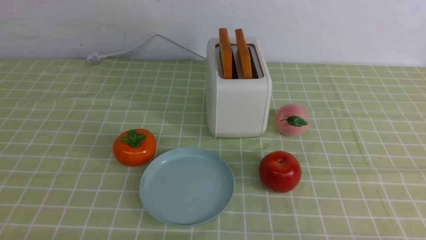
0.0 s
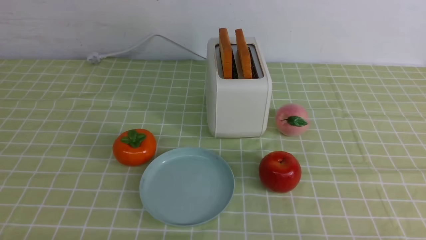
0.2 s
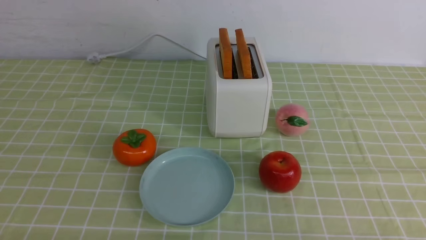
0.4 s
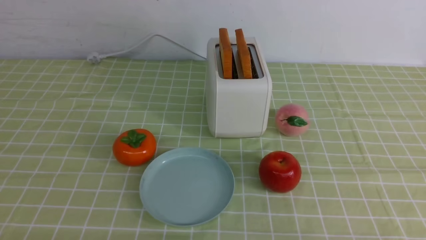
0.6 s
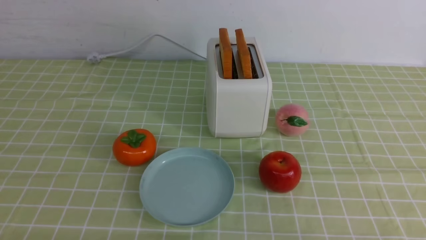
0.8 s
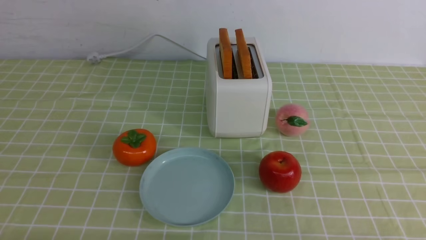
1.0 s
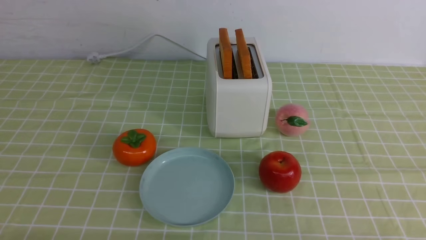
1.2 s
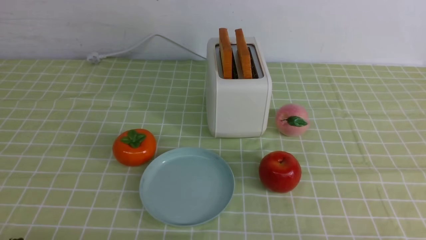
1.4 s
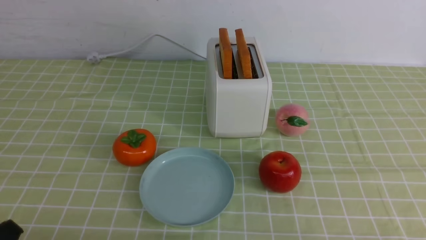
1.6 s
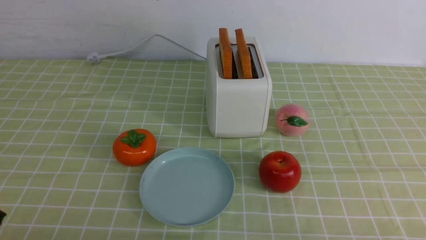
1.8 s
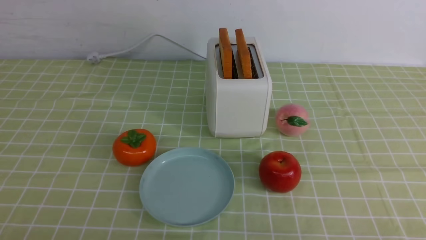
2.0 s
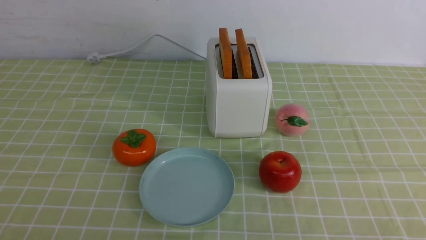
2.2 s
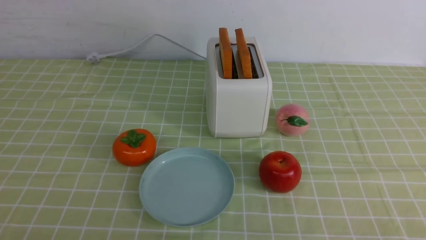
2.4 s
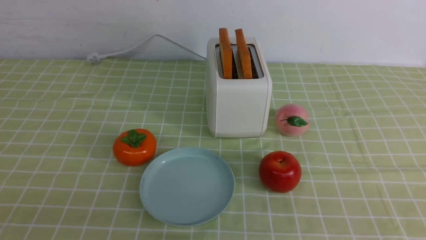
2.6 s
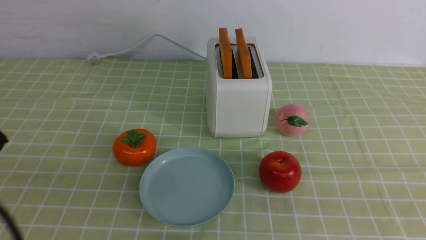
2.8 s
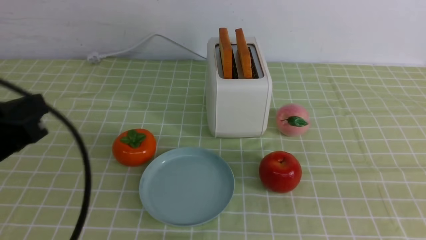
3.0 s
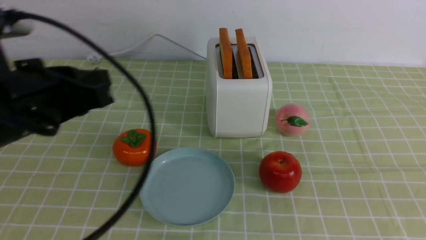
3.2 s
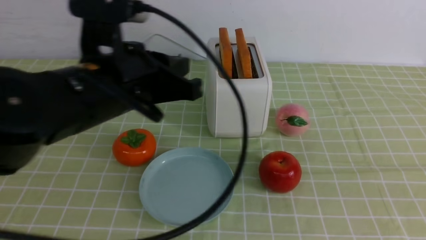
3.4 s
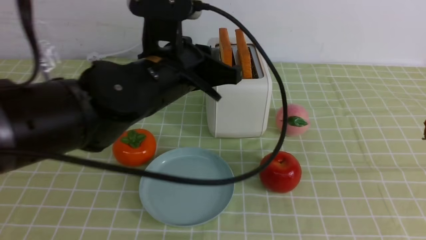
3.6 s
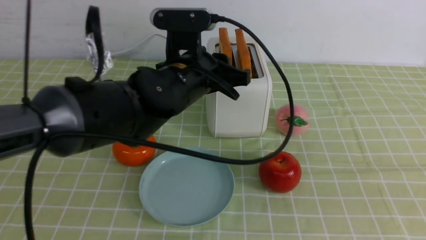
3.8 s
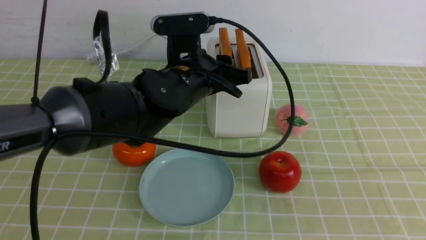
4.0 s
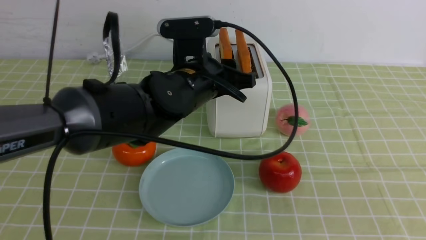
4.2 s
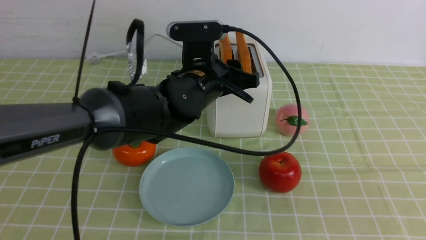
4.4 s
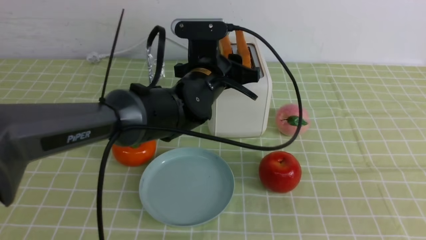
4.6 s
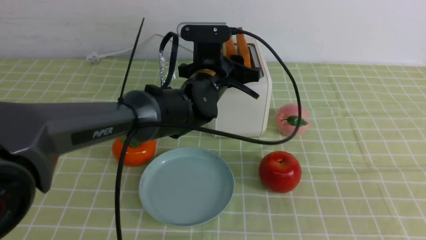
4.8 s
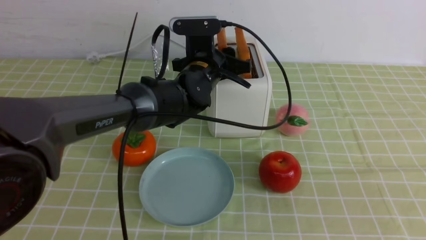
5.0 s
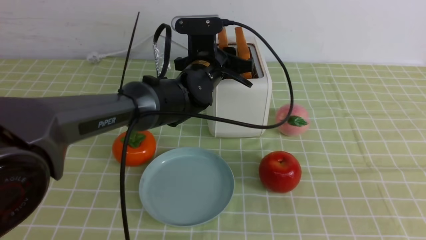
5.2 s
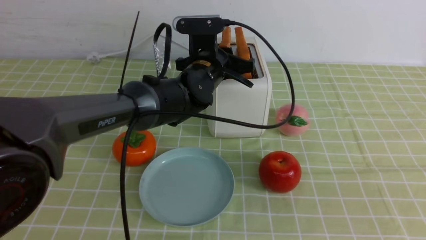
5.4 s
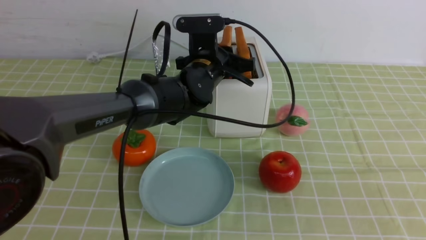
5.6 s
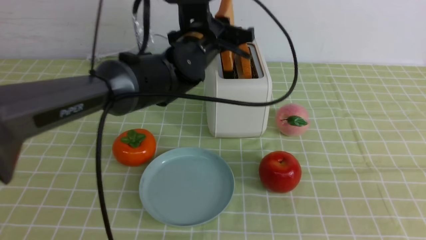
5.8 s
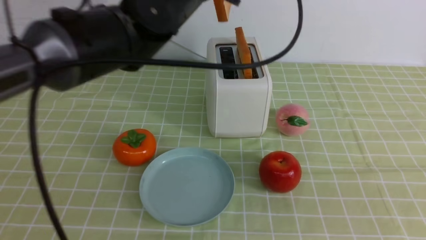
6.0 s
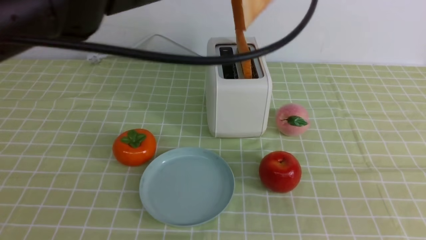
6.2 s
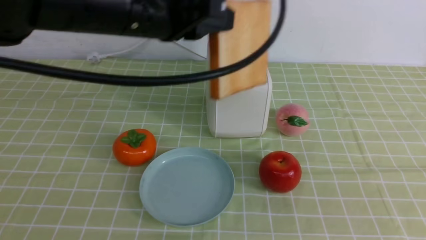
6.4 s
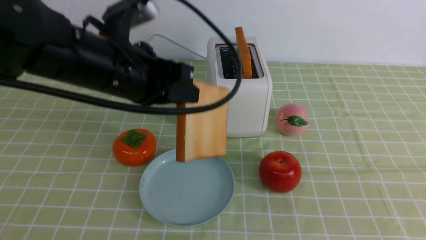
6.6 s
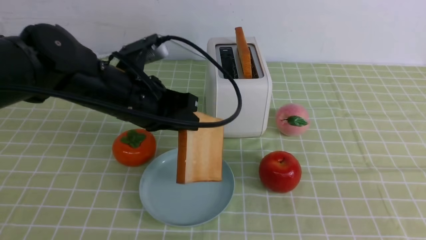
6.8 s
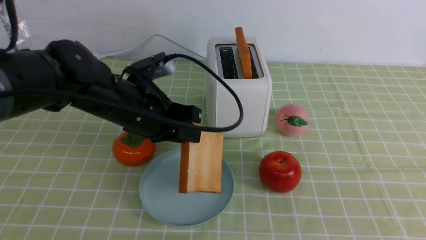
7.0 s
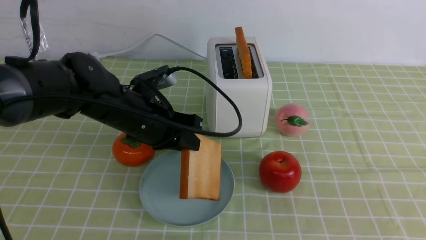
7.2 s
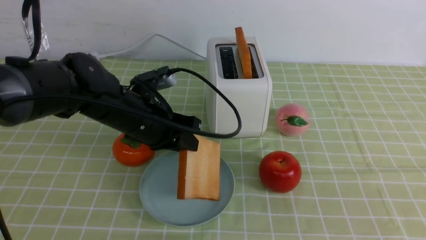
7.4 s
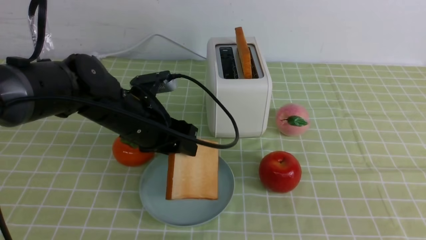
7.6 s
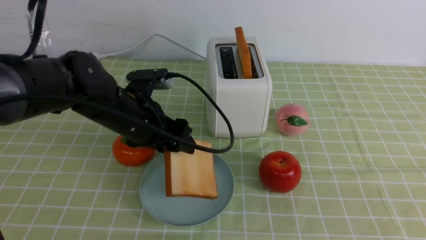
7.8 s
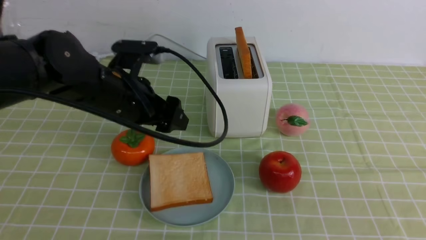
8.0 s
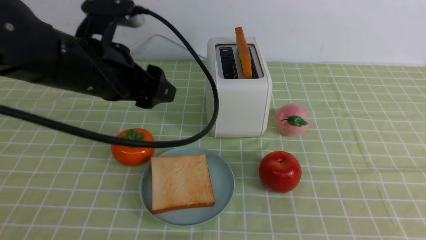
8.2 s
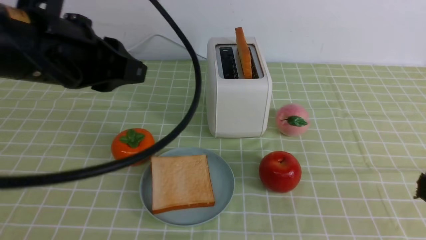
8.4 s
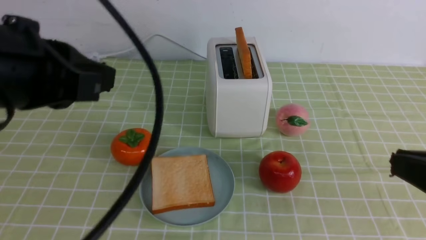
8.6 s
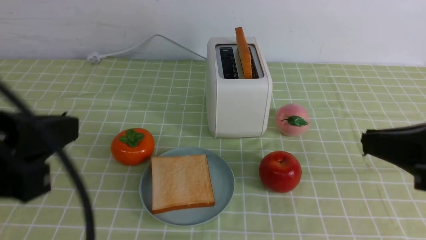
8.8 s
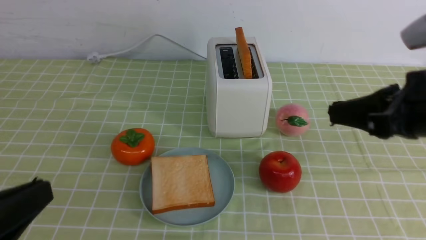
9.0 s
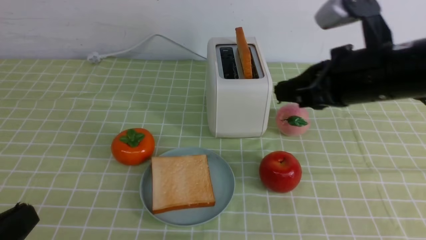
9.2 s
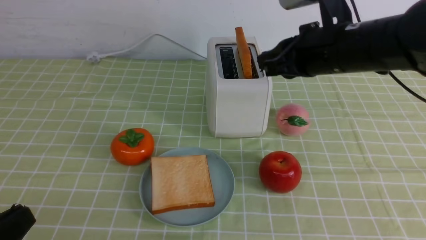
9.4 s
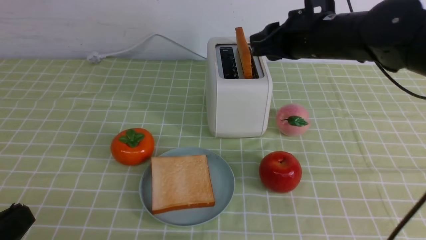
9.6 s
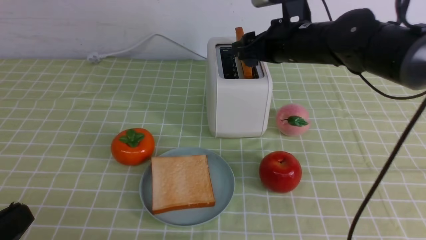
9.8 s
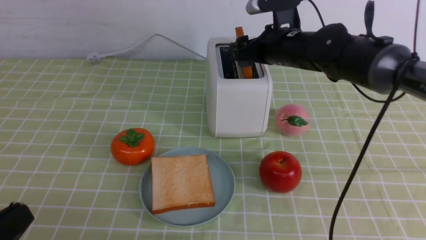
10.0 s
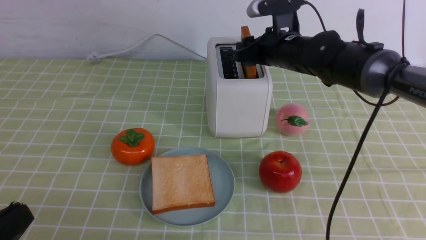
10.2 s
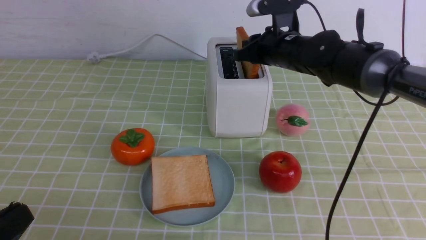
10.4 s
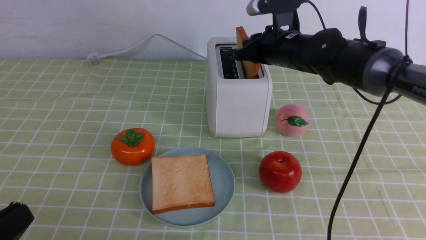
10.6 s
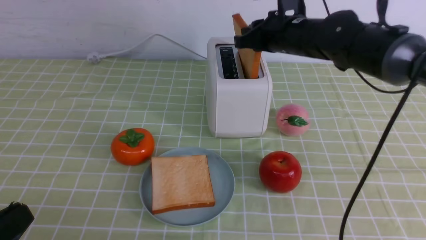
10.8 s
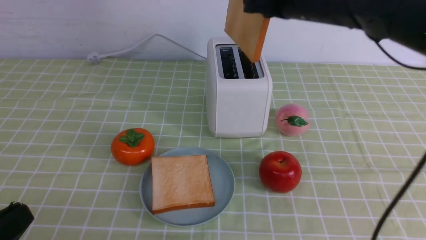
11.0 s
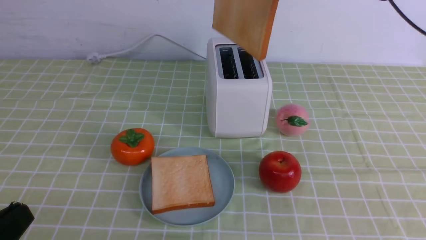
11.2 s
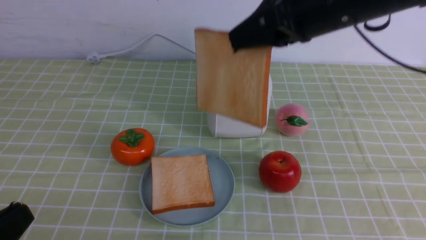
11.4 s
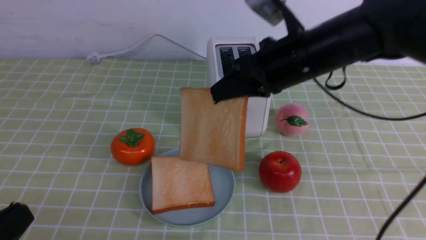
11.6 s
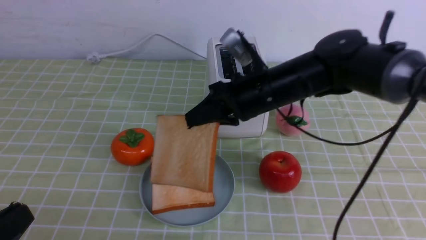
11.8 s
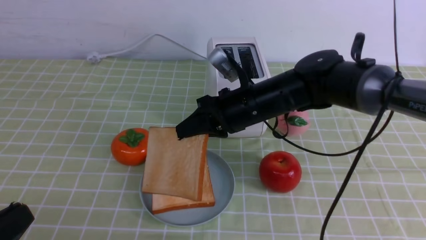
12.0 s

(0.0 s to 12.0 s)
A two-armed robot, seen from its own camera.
Task of the whole recording: take toasted bread from bread machine on green coffee tablecloth place on plate.
Step, 0.0 s - 5.8 s: use the left arm to take out a slice of bread.
Step, 6.2 s - 8.0 s: use the left arm to put a slice of bread into the empty plate.
Step, 8.2 s - 11.4 s: use the right arm to take out a slice of bread.
1.6 s - 3.0 s: The left gripper moves upward and forward, about 15 cm.
3.0 s - 4.4 s: The left gripper is displaced forward and to the right by approximately 30 cm, and opens.
4.4 s - 6.0 s: The left gripper shifts about 10 cm upward, and closes.
6.0 s - 7.6 s: The left gripper travels downward and to the left by about 15 cm, and opens its fingers.
7.6 s - 9.0 s: The left gripper shifts some 25 cm backward, and closes. Meanwhile the right gripper moves forward, some 20 cm.
9.0 s - 10.4 s: The right gripper heads forward, covering approximately 25 cm, and opens and closes again.
10.4 s - 12.0 s: The right gripper travels backward and to the left by roughly 10 cm, and travels upward and back again, approximately 15 cm each way.

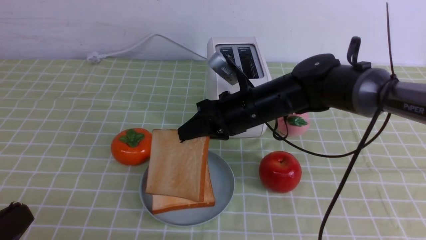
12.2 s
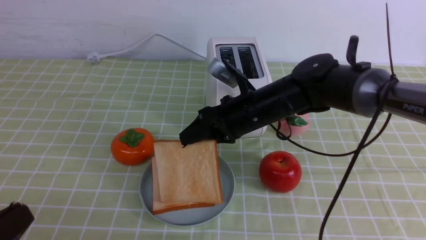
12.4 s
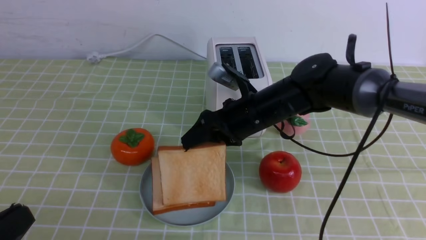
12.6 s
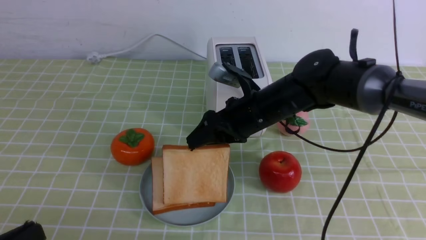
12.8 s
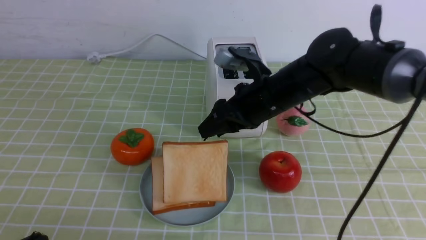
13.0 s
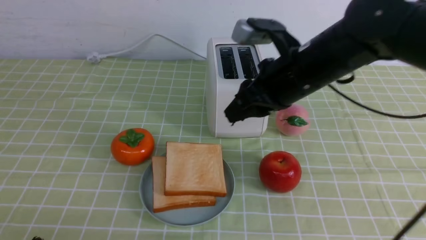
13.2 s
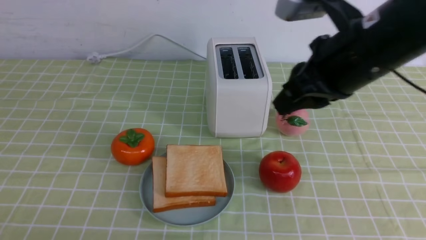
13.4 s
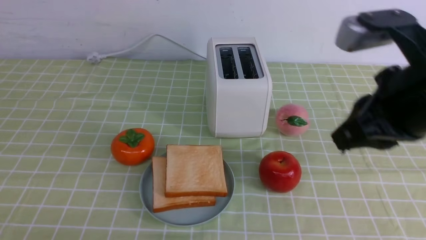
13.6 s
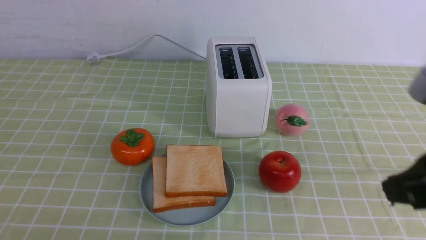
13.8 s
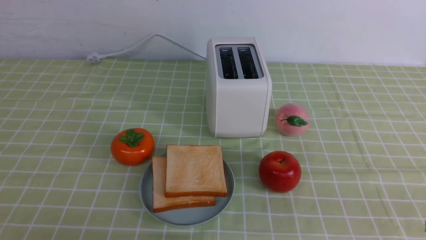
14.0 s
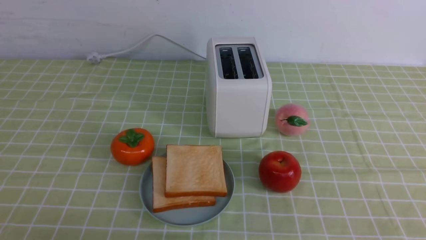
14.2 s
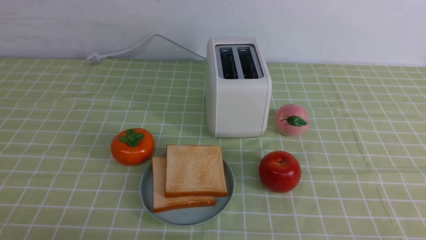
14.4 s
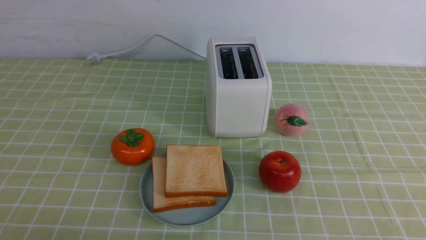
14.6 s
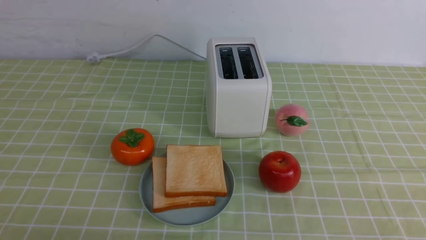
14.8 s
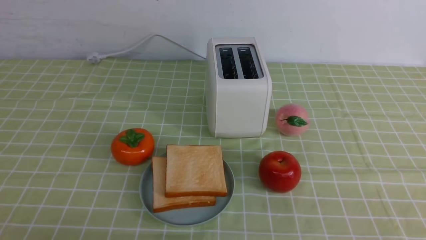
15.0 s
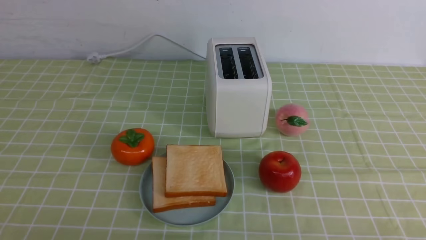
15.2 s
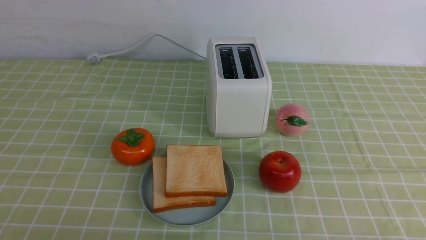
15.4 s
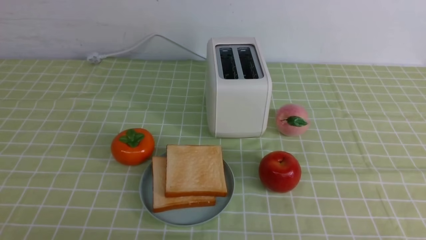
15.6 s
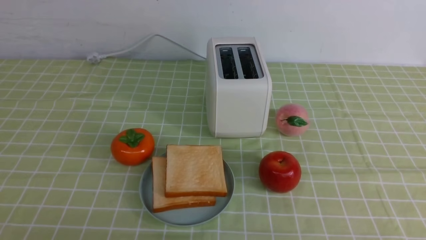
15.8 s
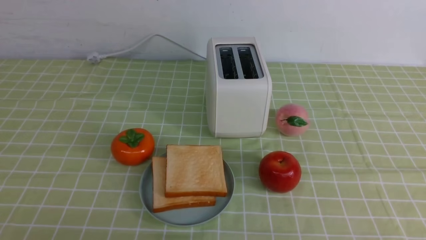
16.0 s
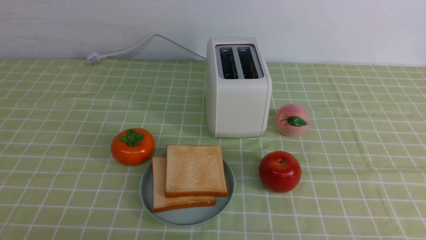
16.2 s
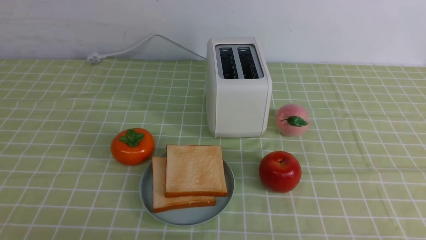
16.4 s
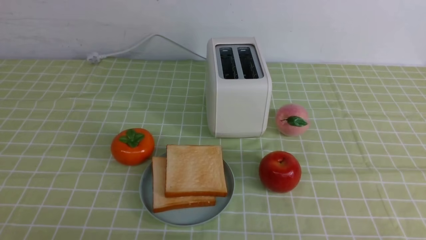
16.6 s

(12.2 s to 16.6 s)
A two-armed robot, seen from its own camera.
Task of the whole recording: take toasted bread from bread machine on green coffee tablecloth place on plate.
12.2 s - 13.6 s: The right gripper goes about 25 cm backward, upward and to the right, and opens, then closes once more.
13.6 s - 15.2 s: The right gripper is displaced downward, backward and to the right by roughly 25 cm.
